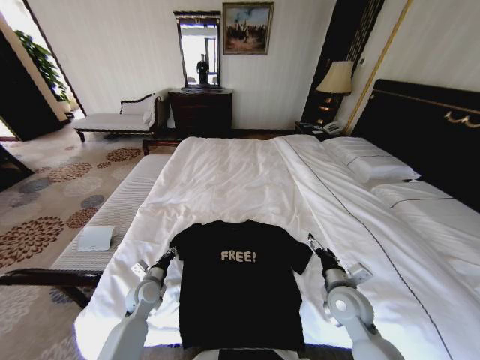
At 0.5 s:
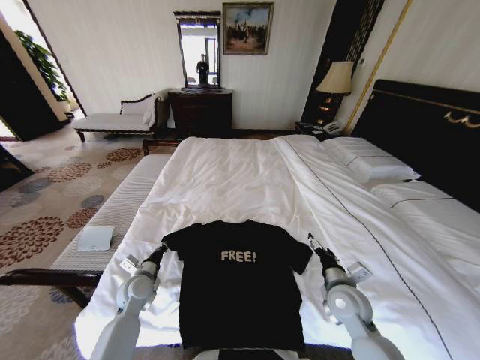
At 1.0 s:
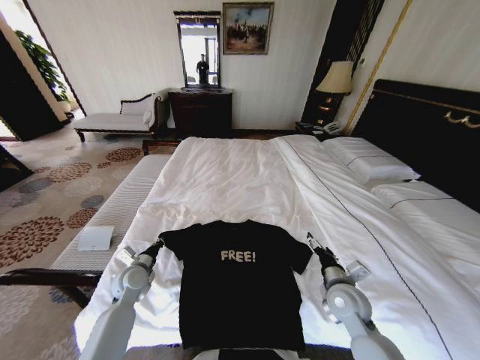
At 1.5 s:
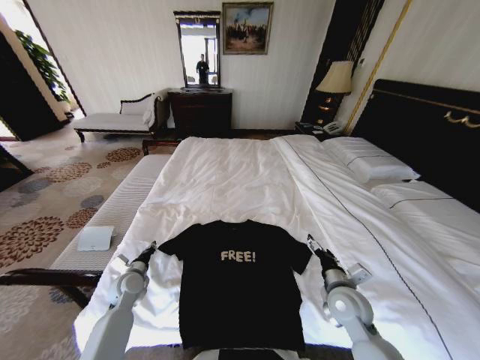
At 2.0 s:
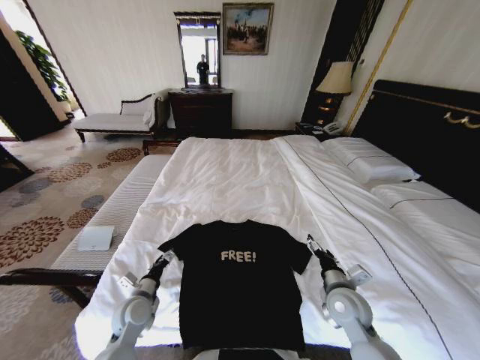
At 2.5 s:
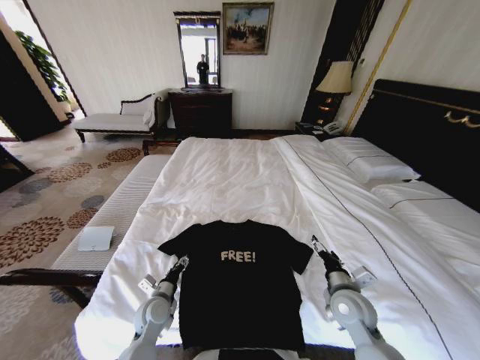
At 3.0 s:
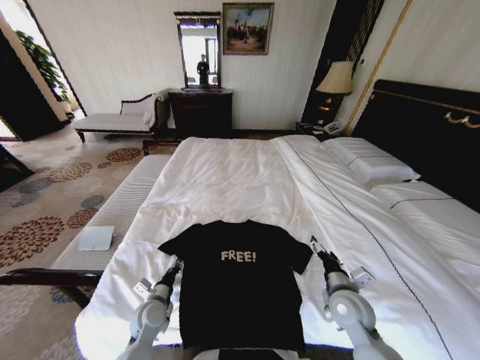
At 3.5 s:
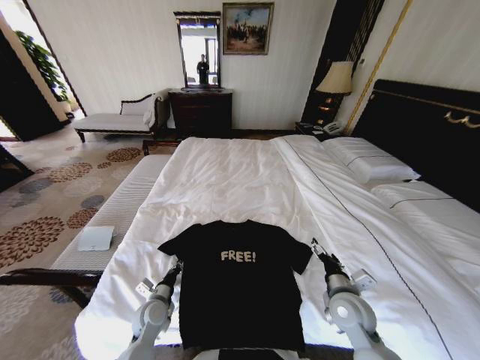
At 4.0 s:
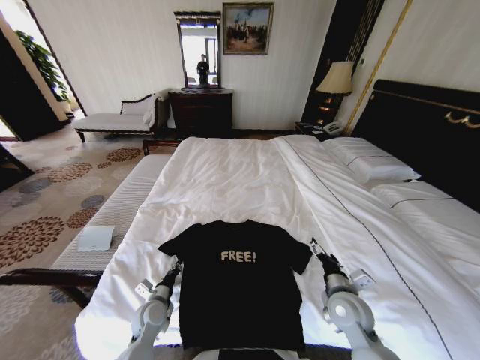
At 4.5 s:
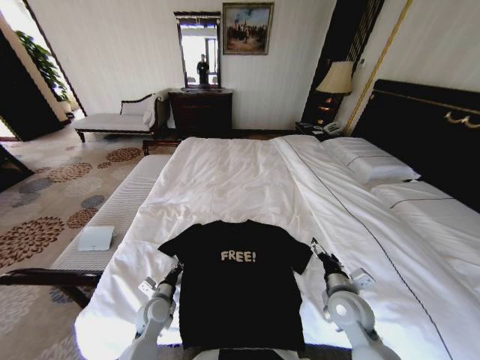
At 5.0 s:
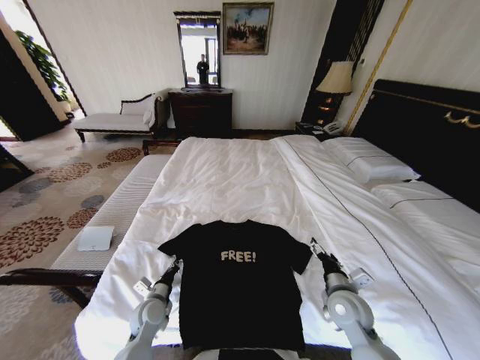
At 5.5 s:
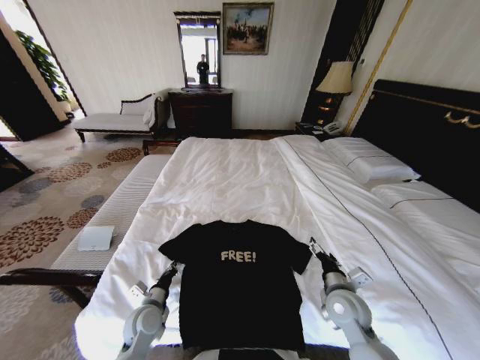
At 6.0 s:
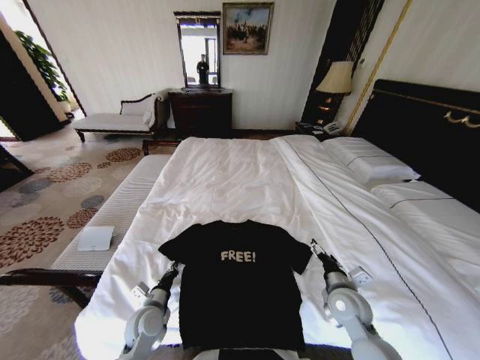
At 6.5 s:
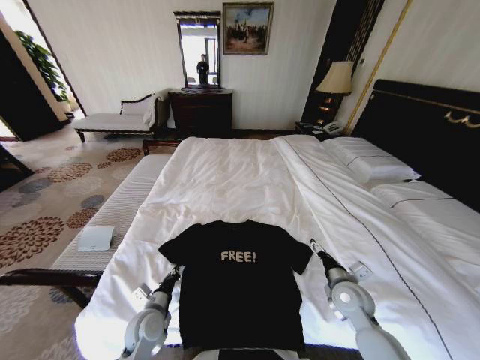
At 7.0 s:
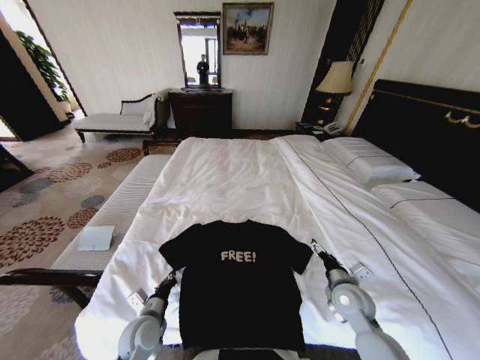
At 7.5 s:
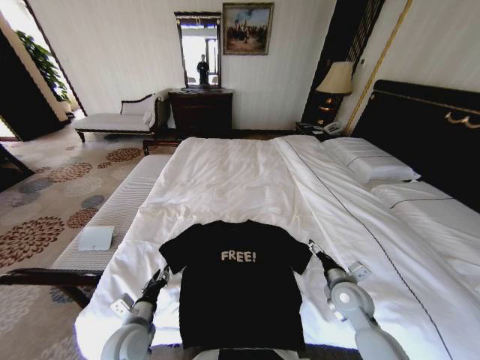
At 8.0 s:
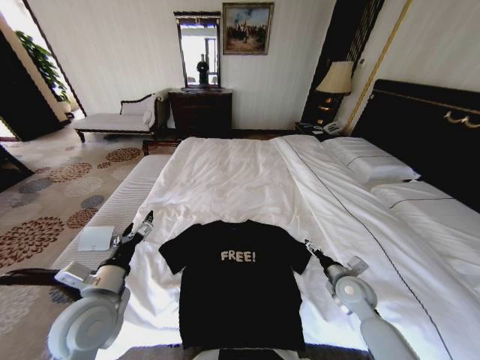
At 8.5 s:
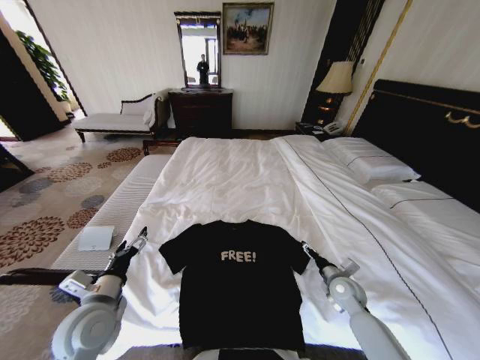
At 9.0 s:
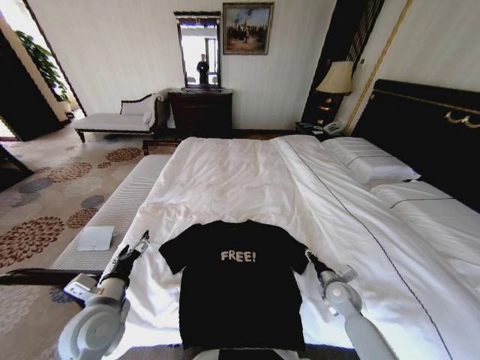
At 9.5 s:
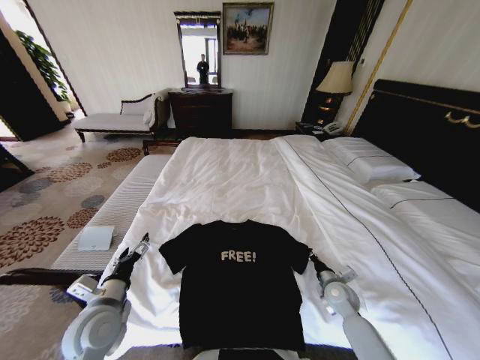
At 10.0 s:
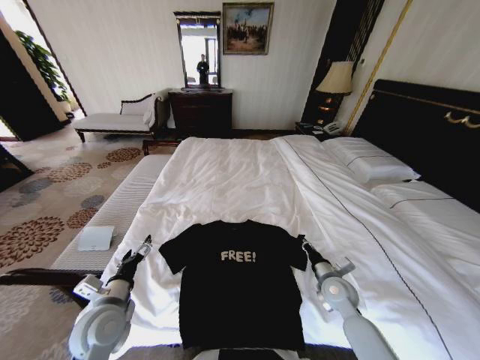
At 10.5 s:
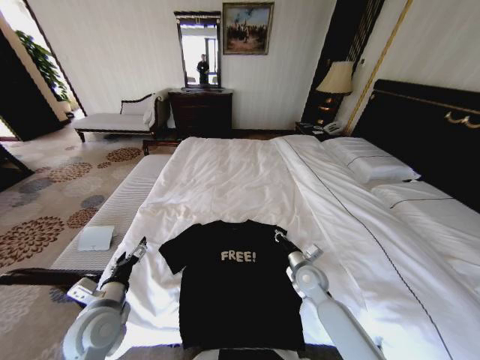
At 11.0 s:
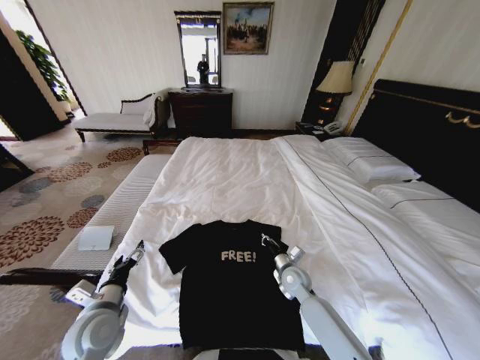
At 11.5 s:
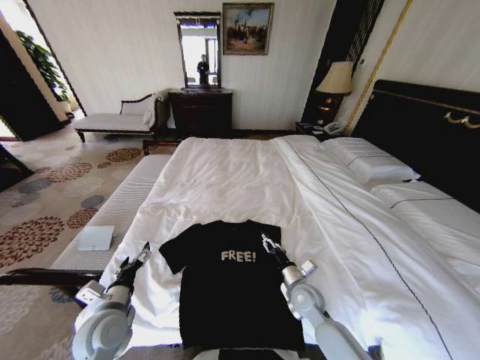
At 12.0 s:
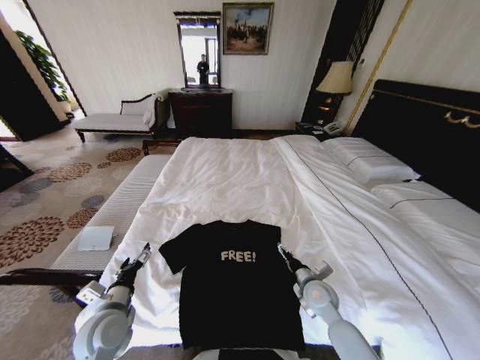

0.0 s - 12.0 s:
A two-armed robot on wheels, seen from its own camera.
Task of the whole recording: Fold the clothes on the bed.
0.0 s - 2.0 s: The left gripper travels backward by about 5 cm, and opens up.
2.0 s - 4.0 s: The left gripper travels downward by about 5 cm, and closes its fingers.
4.0 s - 6.0 s: The grippers stay close to where they were, moving slightly.
6.0 s - 8.0 s: The right gripper shifts by some 5 cm, while the left gripper heads upward, covering about 20 cm, and opens its fingers.
8.0 s - 10.0 s: The left gripper heads downward, covering roughly 5 cm. Meanwhile the right gripper travels downward and back again, roughly 10 cm each way, and closes its fingers.
10.0 s - 12.0 s: The right gripper travels to the left by roughly 5 cm, and opens its fingers.

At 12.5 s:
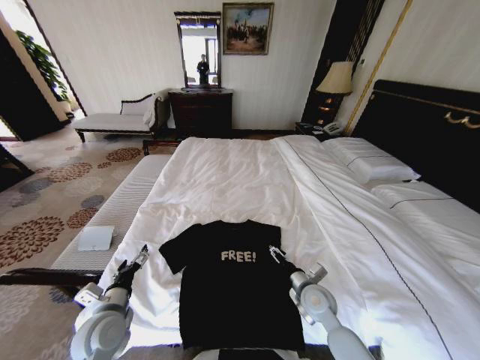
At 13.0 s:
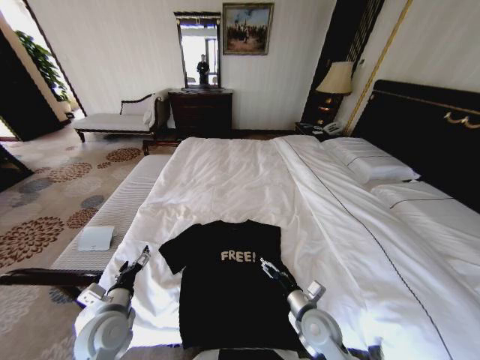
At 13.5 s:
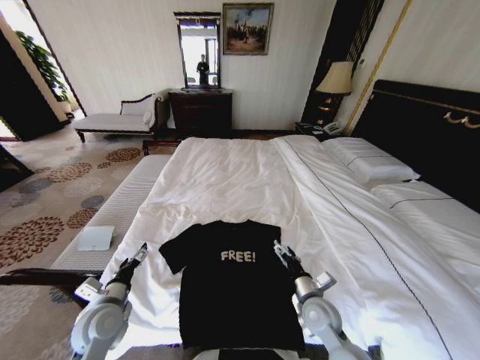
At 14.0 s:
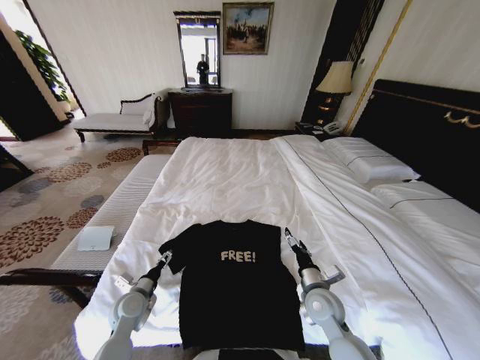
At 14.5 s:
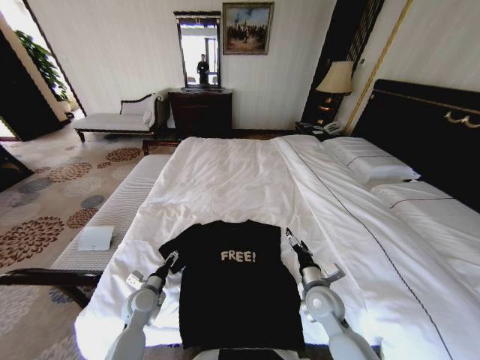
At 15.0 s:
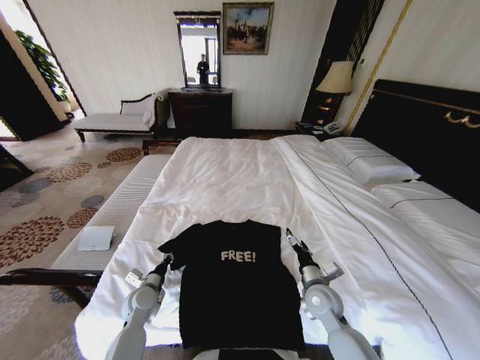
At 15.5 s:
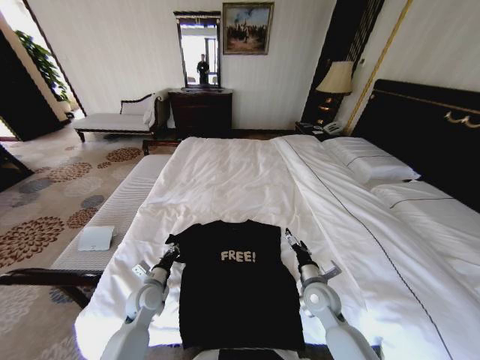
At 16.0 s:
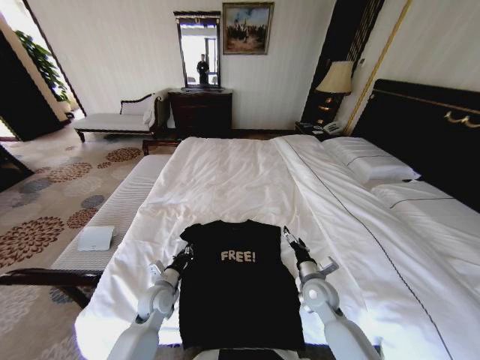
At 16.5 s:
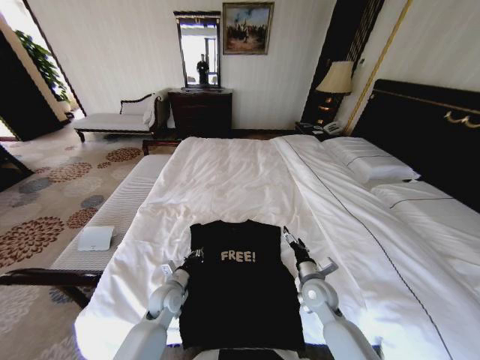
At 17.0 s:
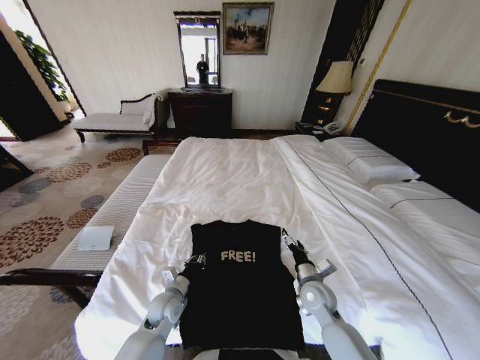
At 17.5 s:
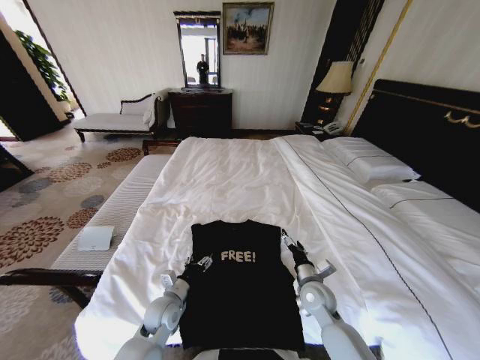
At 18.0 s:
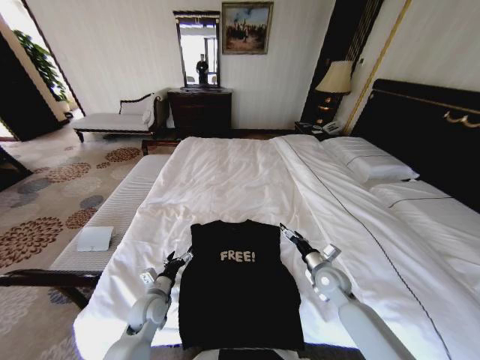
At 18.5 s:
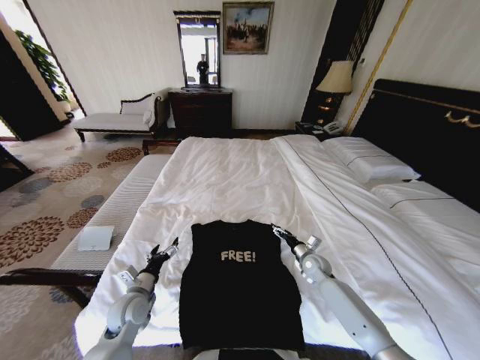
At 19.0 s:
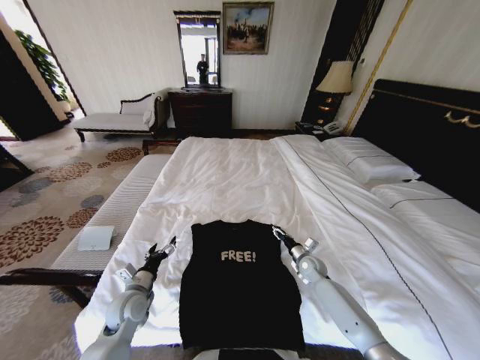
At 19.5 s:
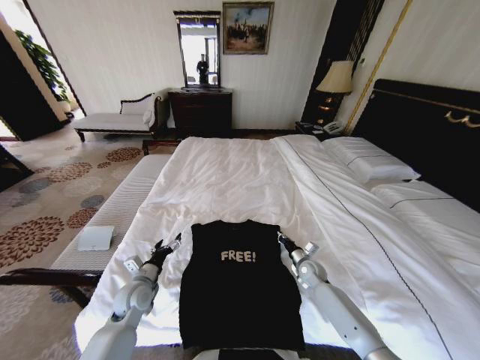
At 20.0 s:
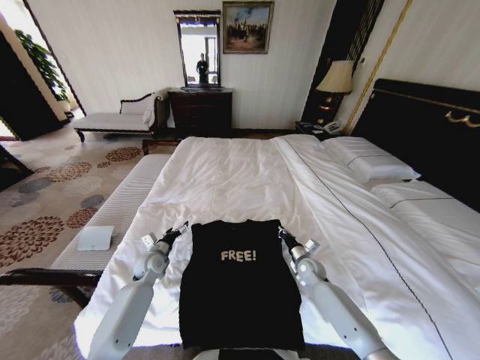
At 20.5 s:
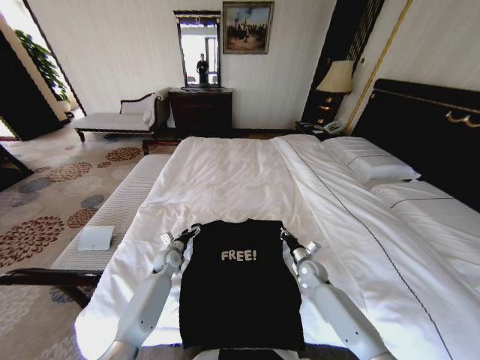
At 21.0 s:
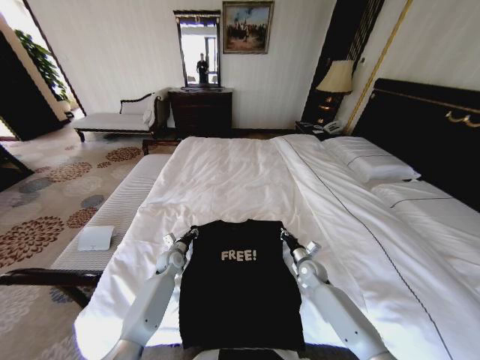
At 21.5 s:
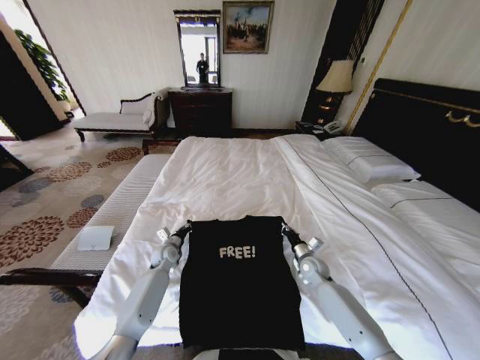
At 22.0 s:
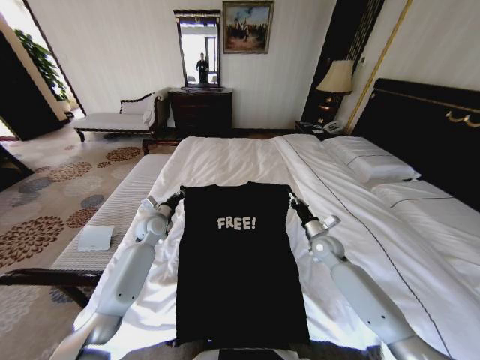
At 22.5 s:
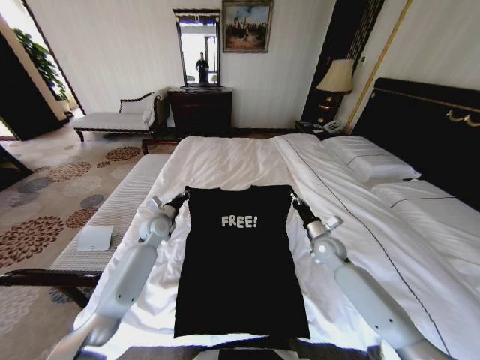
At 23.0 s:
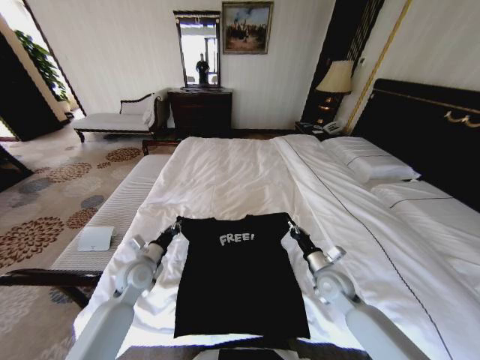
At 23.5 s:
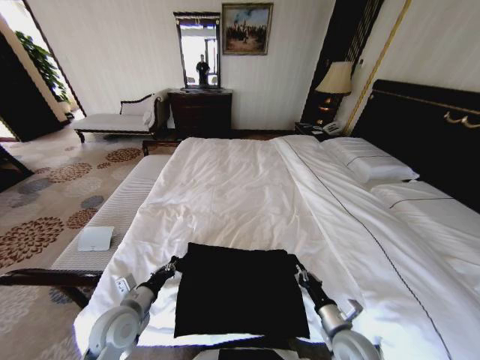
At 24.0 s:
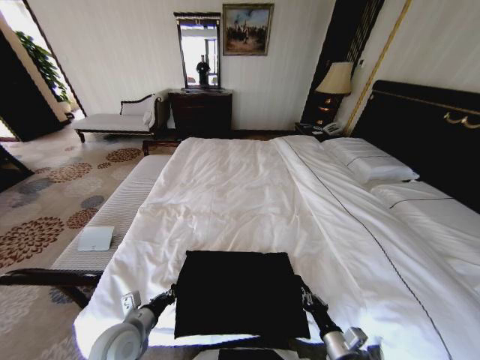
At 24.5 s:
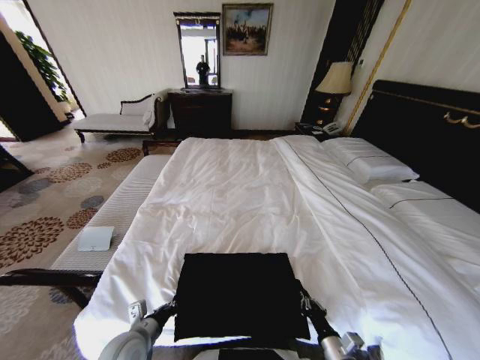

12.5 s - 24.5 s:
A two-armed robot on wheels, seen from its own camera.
Task of the whole recording: Fold the clothes on the bed.
12.5 s - 14.5 s: The left gripper shifts some 15 cm downward and forward.
14.5 s - 16.5 s: The left gripper moves to the right, approximately 5 cm, and closes.
16.5 s - 18.5 s: The right gripper shifts approximately 15 cm forward, to the right and downward, while the left gripper travels to the left and upward by roughly 10 cm, and opens up.
18.5 s - 20.5 s: The right gripper closes, while the left gripper is displaced forward by about 20 cm.
20.5 s - 22.5 s: The right gripper goes about 10 cm upward. Meanwhile the left gripper is displaced upward and forward by about 15 cm, and closes its fingers.
22.5 s - 24.5 s: Both grippers move backward, some 35 cm.

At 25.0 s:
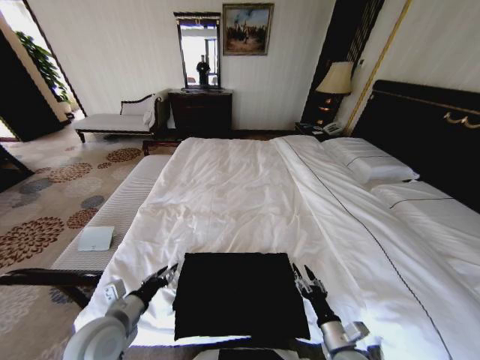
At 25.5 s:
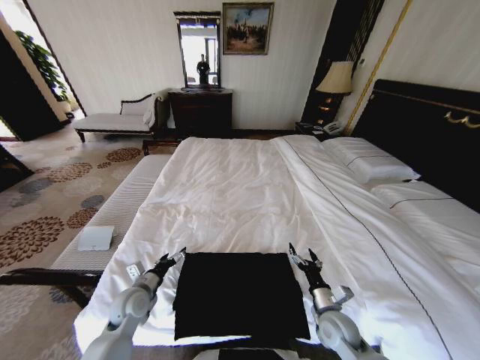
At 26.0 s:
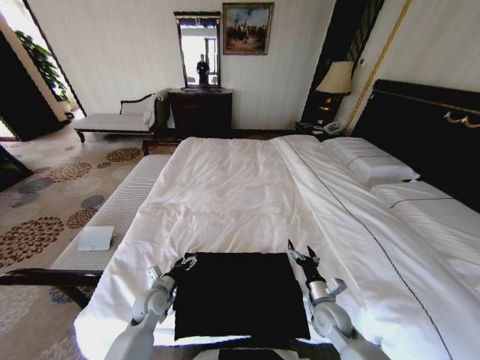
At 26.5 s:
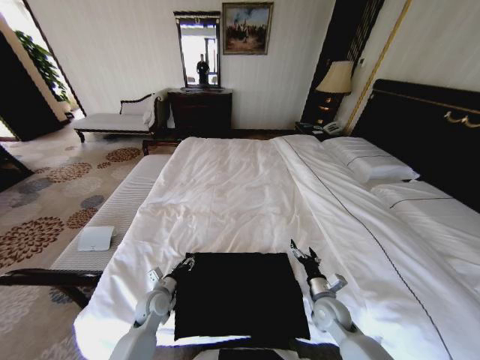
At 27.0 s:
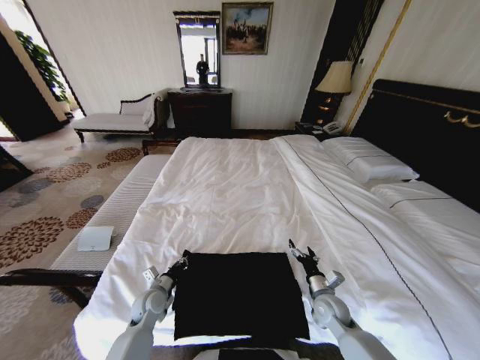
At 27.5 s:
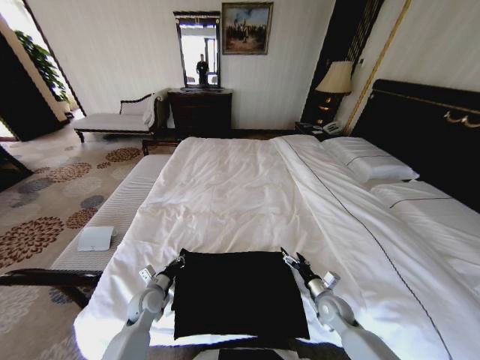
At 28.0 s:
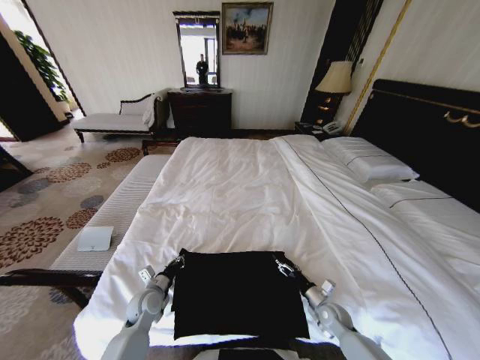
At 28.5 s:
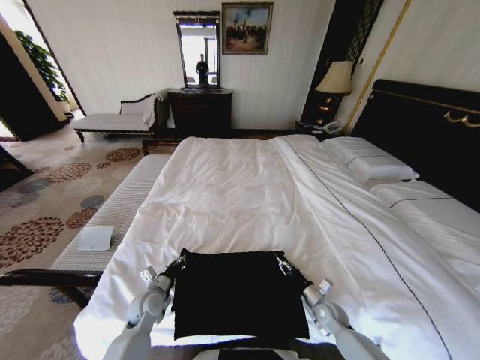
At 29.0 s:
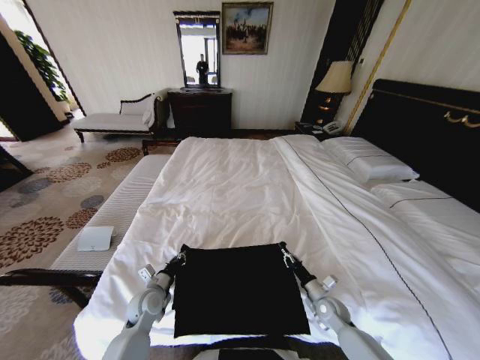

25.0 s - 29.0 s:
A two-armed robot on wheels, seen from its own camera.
Task of the whole recording: Fold the clothes on the bed.
25.0 s - 27.0 s: The left gripper goes about 20 cm downward and forward, and closes up. Meanwhile the right gripper is displaced forward by about 15 cm, and opens up.
27.0 s - 29.0 s: The right gripper travels downward by about 5 cm, and closes up.
